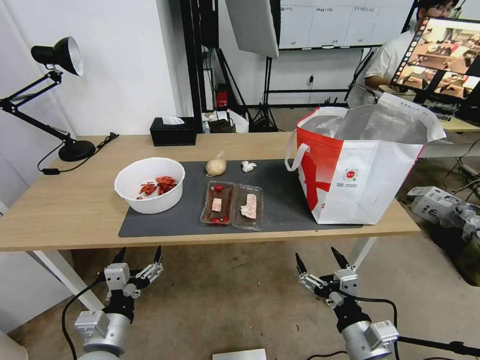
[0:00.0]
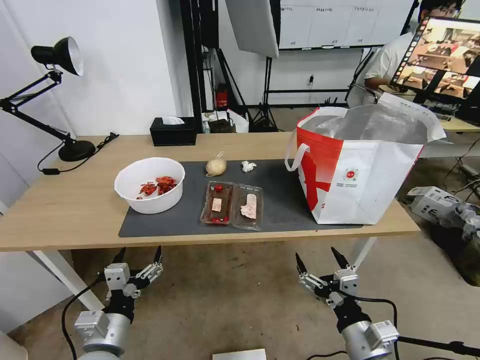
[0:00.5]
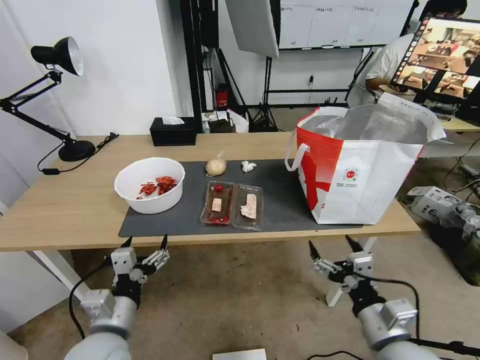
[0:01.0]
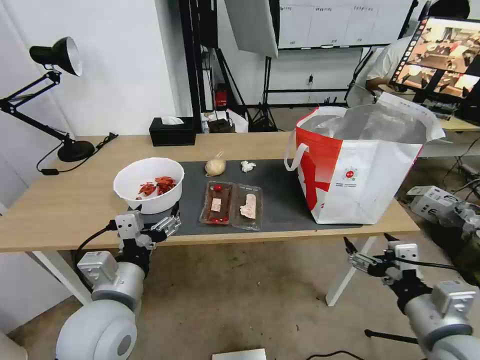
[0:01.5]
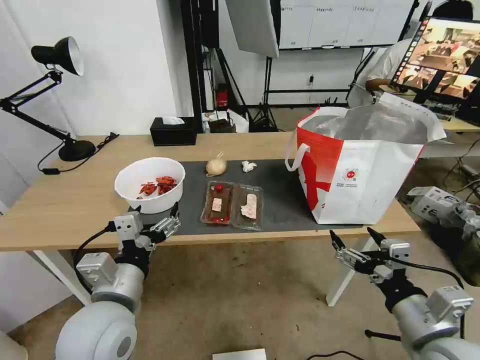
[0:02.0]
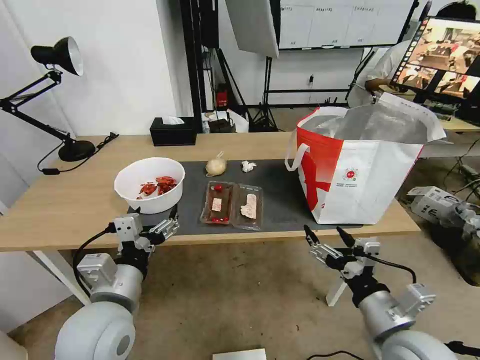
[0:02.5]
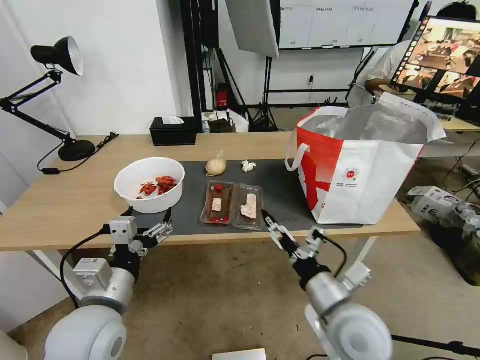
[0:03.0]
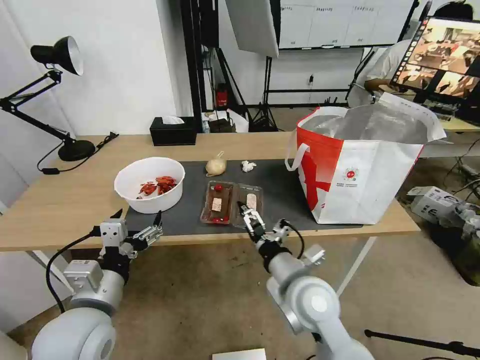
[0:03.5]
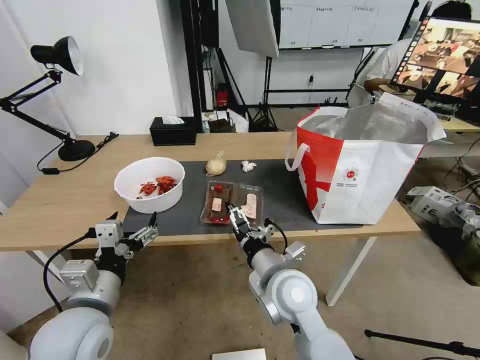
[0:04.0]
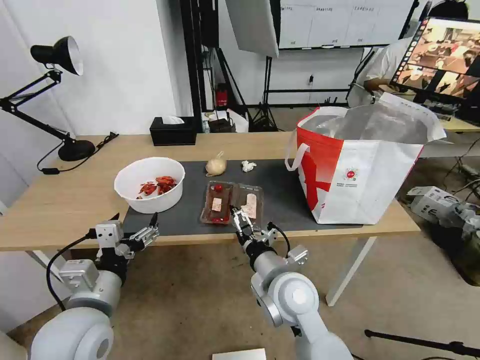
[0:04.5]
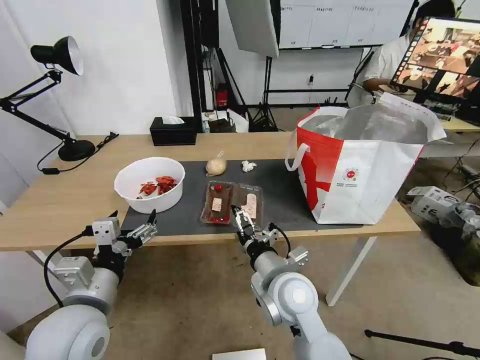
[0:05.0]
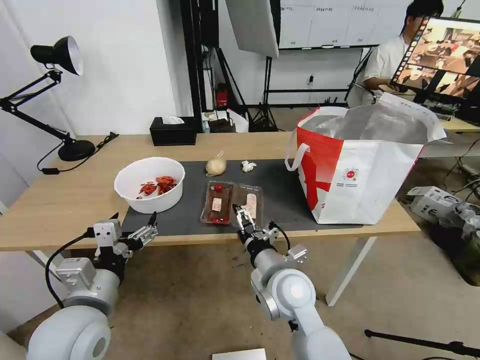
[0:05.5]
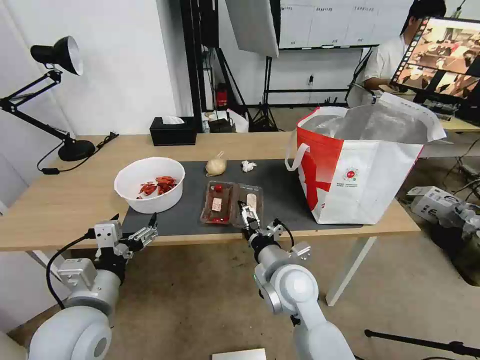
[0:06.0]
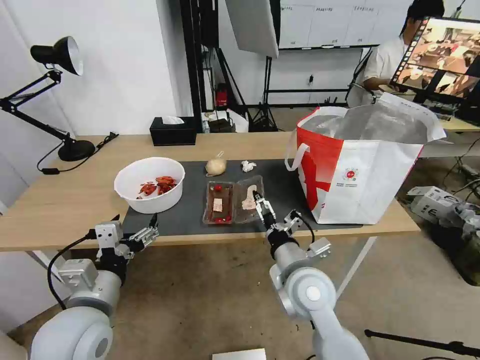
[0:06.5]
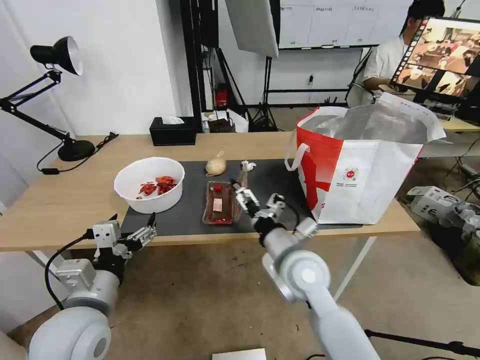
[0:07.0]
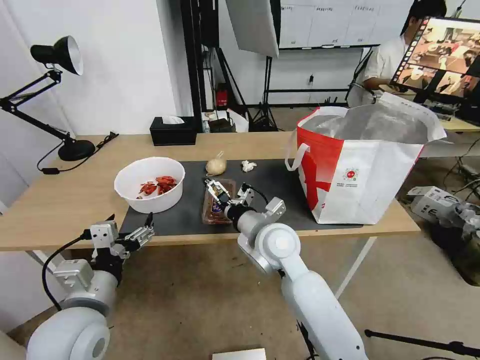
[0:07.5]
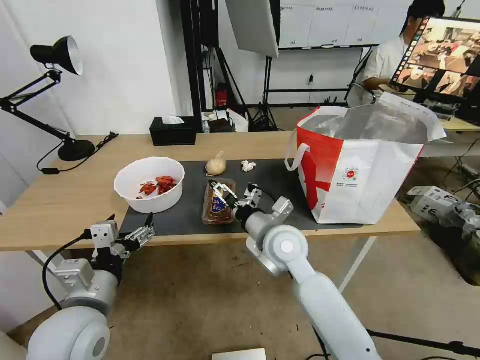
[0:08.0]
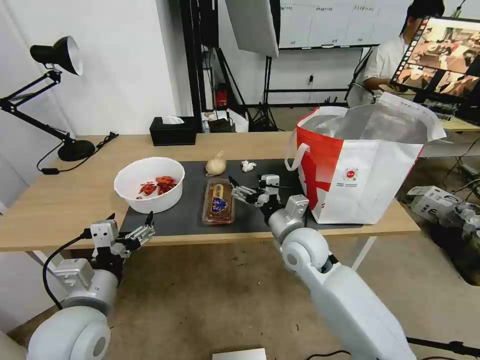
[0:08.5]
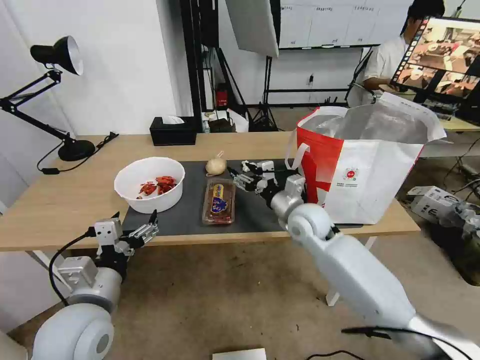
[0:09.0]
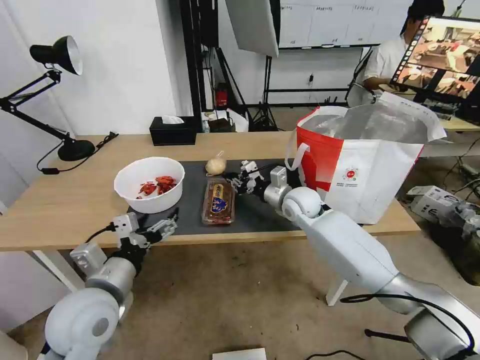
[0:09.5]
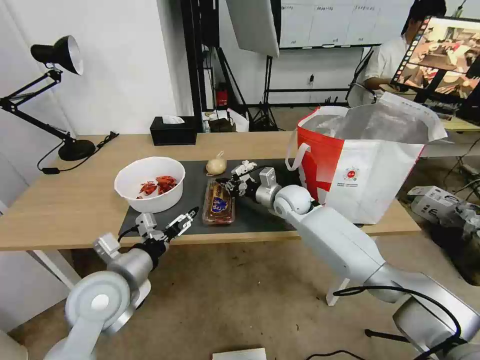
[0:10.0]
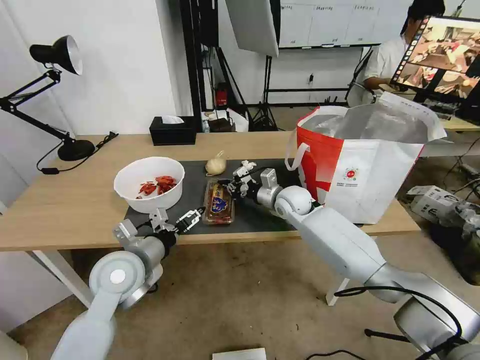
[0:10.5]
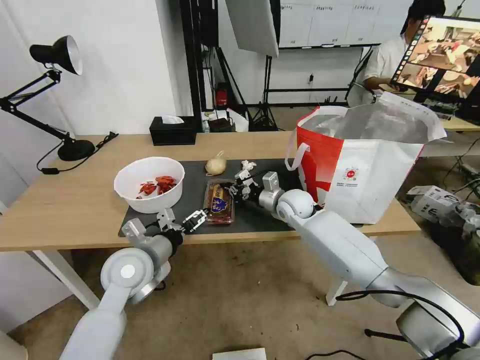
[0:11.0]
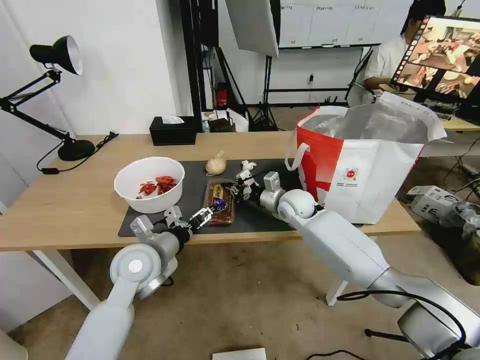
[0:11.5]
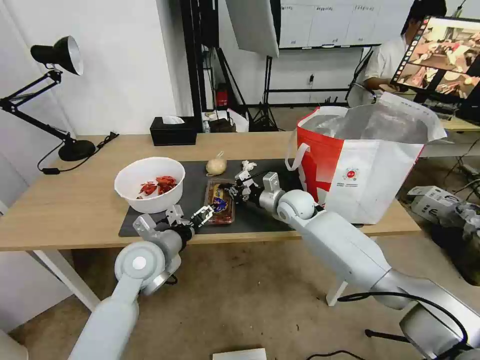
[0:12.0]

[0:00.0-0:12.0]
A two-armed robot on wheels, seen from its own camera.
Task of the whole recording: Pick up the trash from the table and place it into the takeout bag.
0:02.0 to 0:04.0: The right gripper goes about 25 cm to the left and forward.
0:04.0 to 0:06.0: There are only small adjustments of the grippers.
0:06.0 to 0:08.0: The right gripper shifts approximately 5 cm forward.
0:08.0 to 0:10.0: The right gripper travels forward by some 15 cm, and closes. Meanwhile the left gripper travels forward by about 5 cm.
0:10.0 to 0:12.0: The left gripper shifts about 5 cm forward.

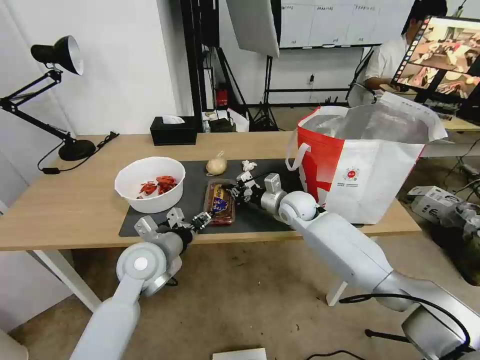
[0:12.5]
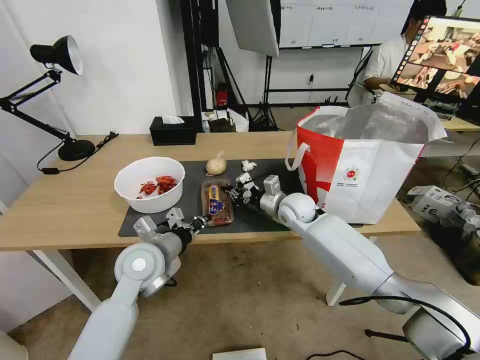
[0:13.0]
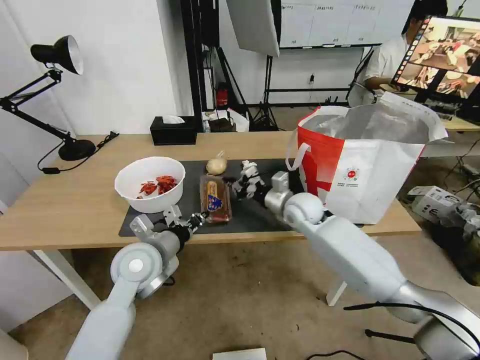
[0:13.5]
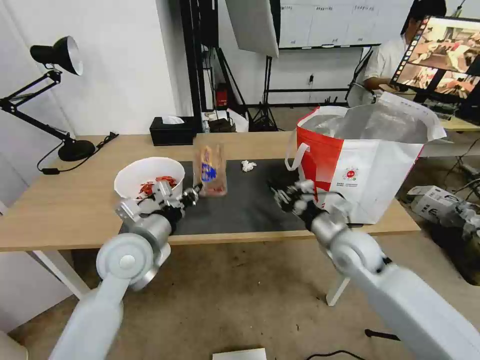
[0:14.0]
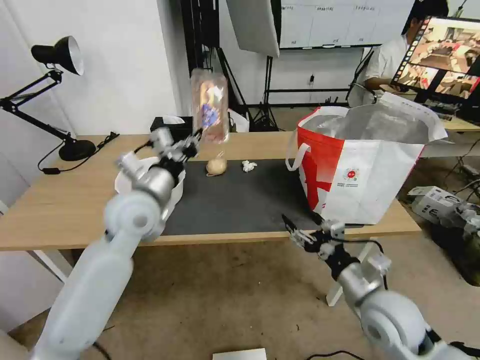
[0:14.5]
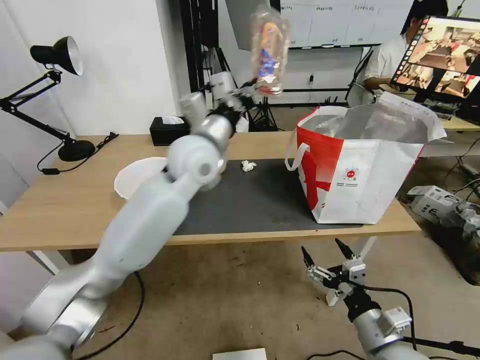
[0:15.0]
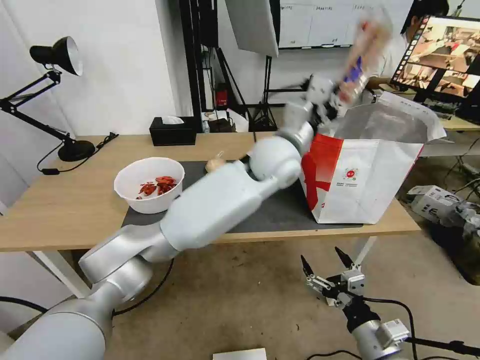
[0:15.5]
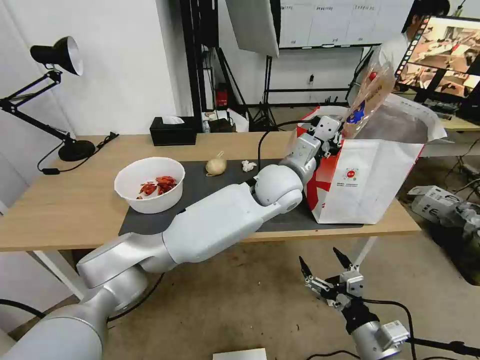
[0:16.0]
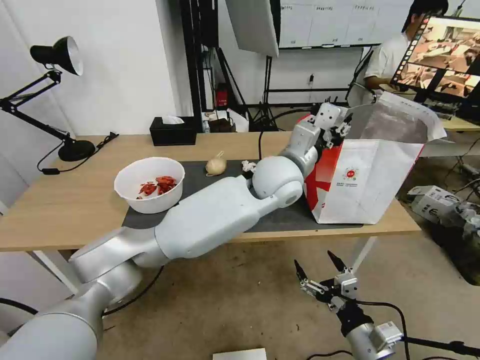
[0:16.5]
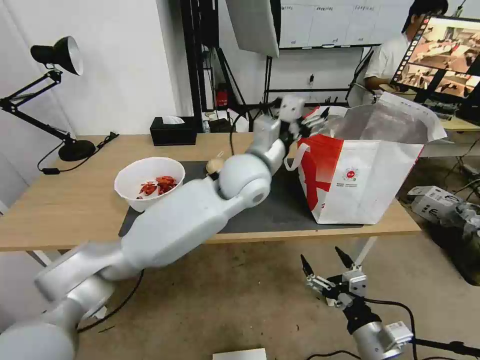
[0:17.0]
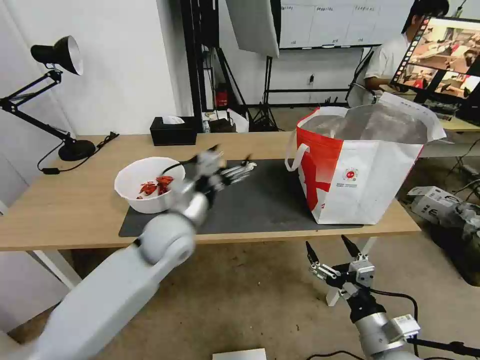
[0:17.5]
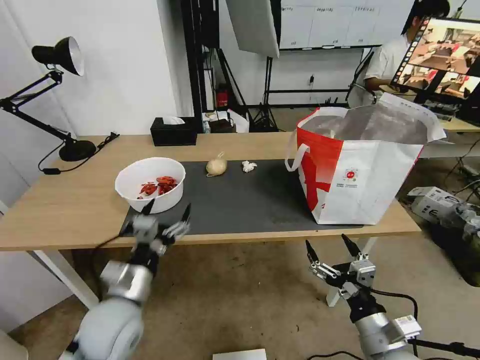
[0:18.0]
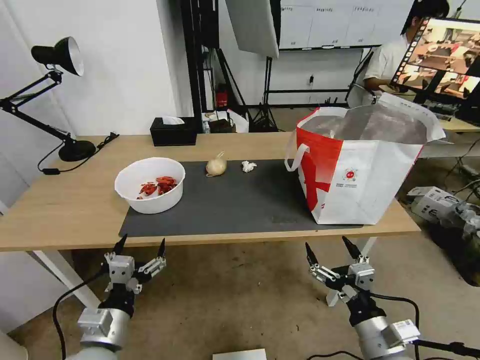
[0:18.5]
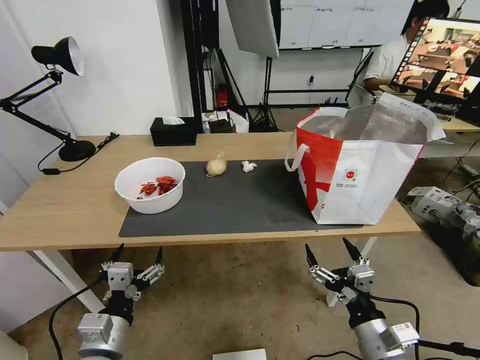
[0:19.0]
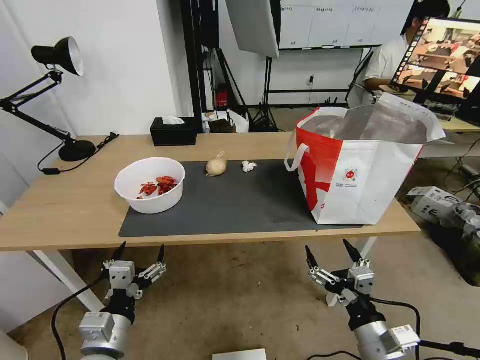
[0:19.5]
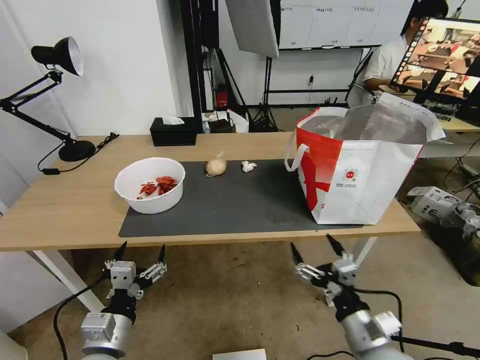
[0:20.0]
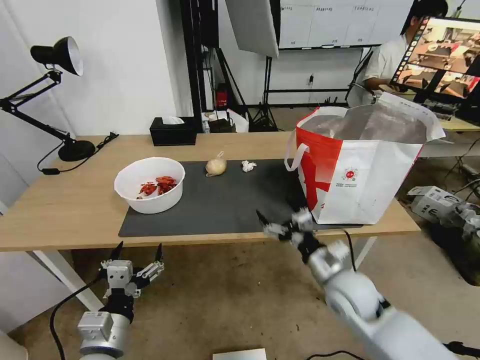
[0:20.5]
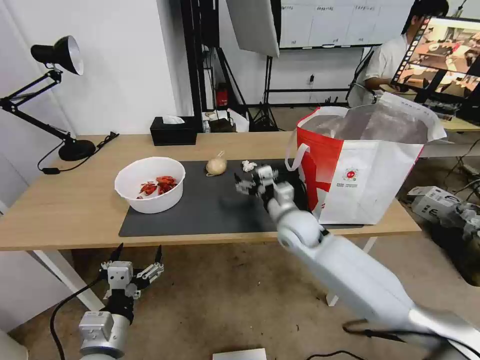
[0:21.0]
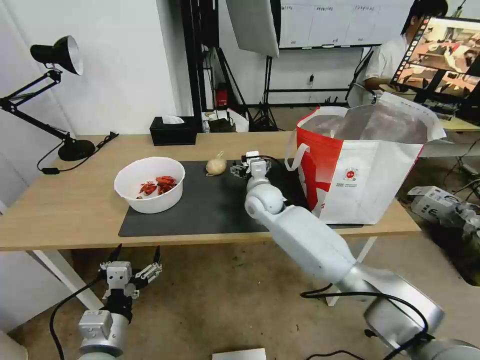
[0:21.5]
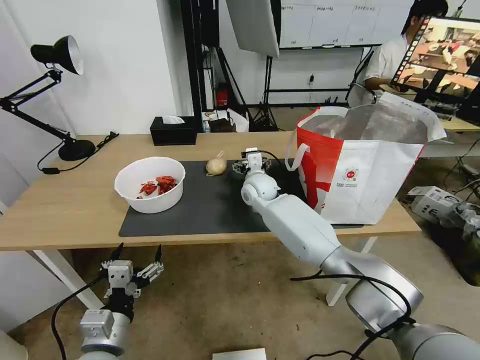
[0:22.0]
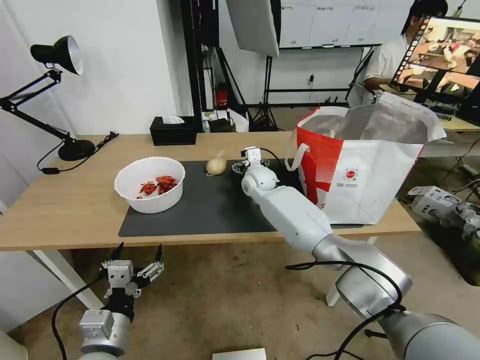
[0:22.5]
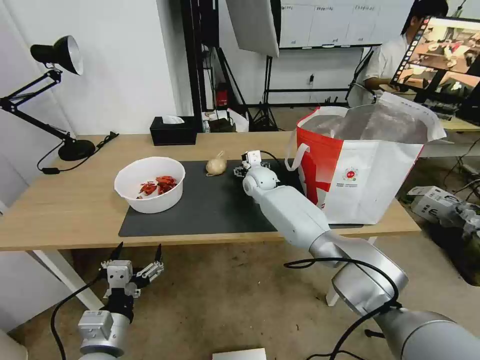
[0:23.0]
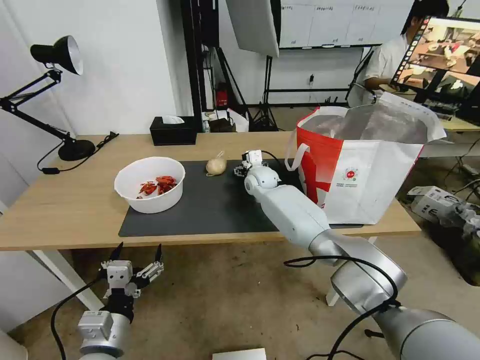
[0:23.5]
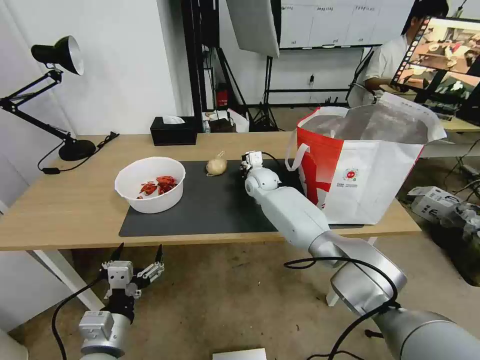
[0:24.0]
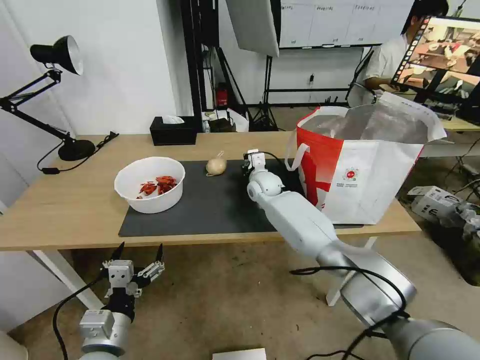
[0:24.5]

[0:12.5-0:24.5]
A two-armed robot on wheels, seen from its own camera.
Task of the whole recording: Pick up the trash from the table and place it into the takeout bag.
0:12.5 to 0:14.5: The right gripper shifts roughly 30 cm backward, and opens its fingers; the left gripper shifts roughly 15 cm upward and forward, and closes its fingers.
0:14.5 to 0:16.5: The right gripper goes some 10 cm backward and downward, while the left gripper goes approximately 25 cm to the right, and opens.
0:16.5 to 0:18.5: The left gripper travels to the left, backward and downward by some 50 cm, and opens.
0:18.5 to 0:20.5: The right gripper is displaced forward by about 15 cm.
0:20.5 to 0:22.5: The right gripper travels forward and to the left by approximately 35 cm.
0:22.5 to 0:24.5: The right gripper closes.

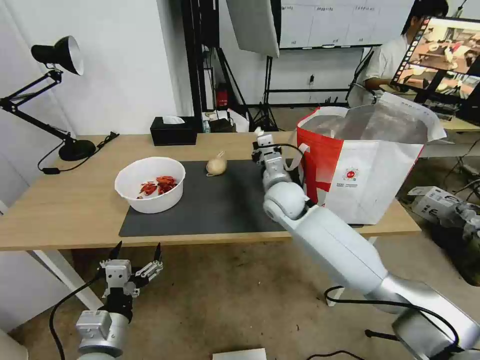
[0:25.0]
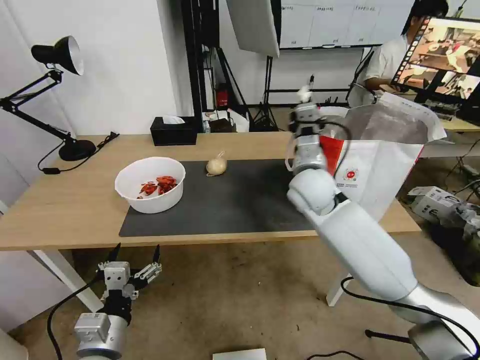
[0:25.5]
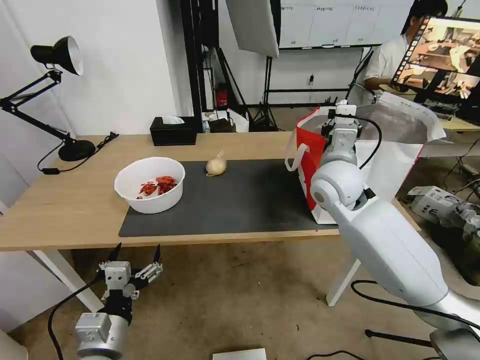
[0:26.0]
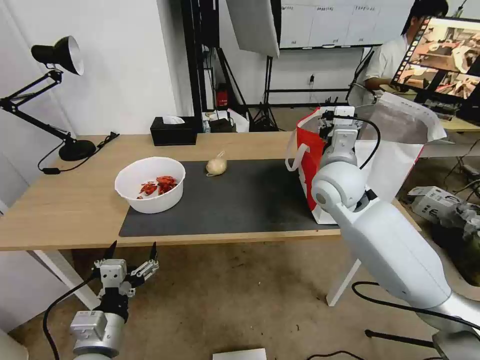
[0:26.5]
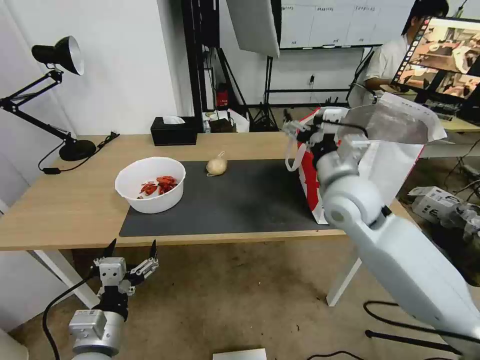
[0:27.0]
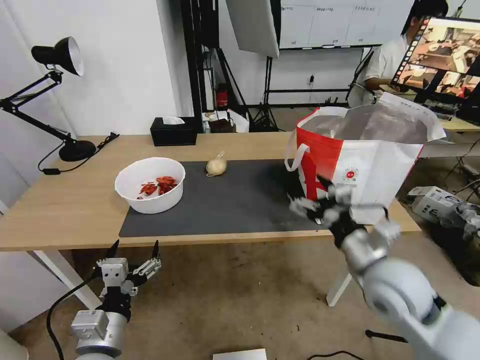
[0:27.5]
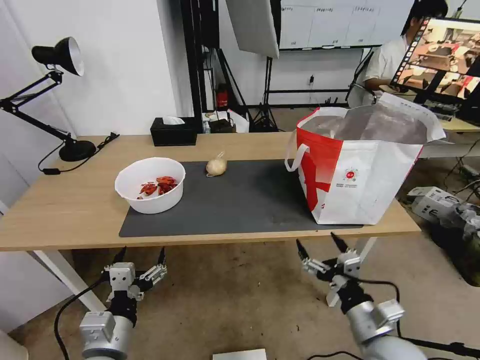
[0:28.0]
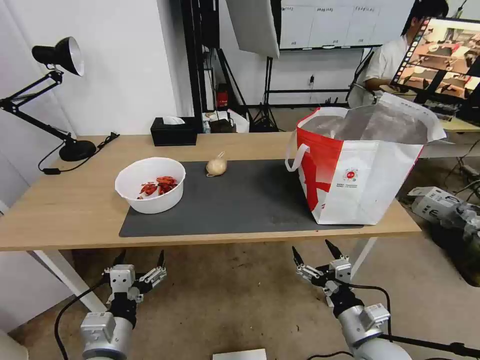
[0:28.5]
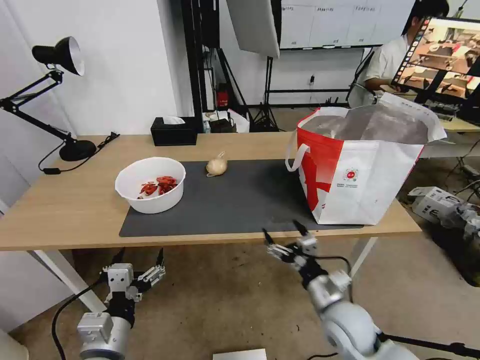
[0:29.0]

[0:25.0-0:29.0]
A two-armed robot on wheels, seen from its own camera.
Task of the whole recording: Pick up the trash from the table and place it into the takeout bag.
0:25.0 to 0:27.0: The right gripper heads upward, to the right and backward, covering about 15 cm, and opens its fingers.
0:27.0 to 0:29.0: The right gripper travels downward and backward by some 30 cm.
